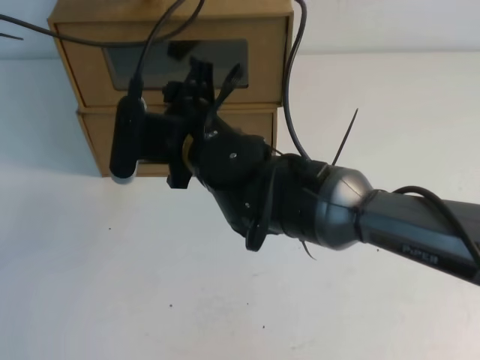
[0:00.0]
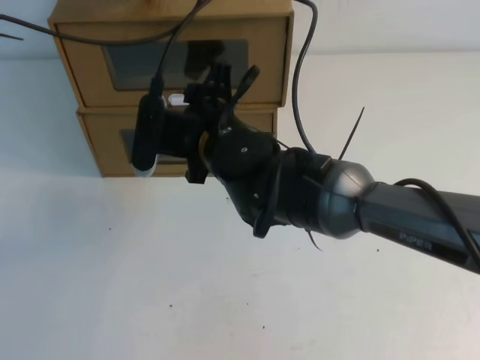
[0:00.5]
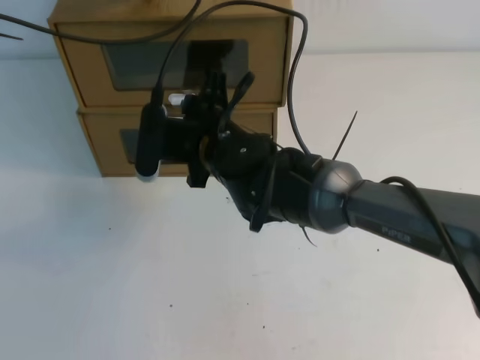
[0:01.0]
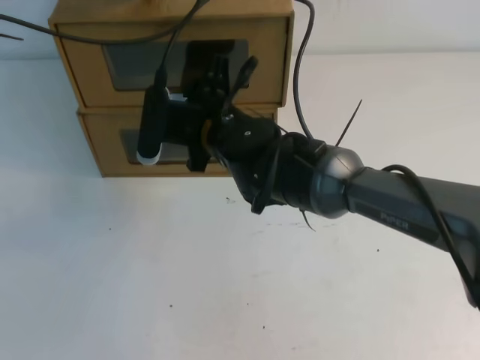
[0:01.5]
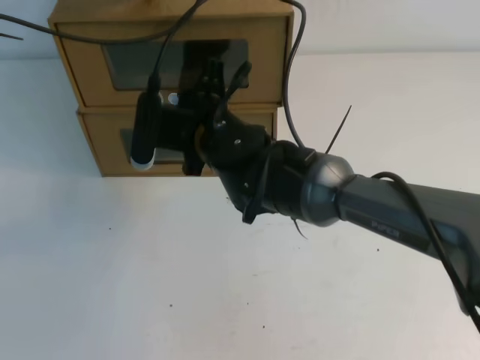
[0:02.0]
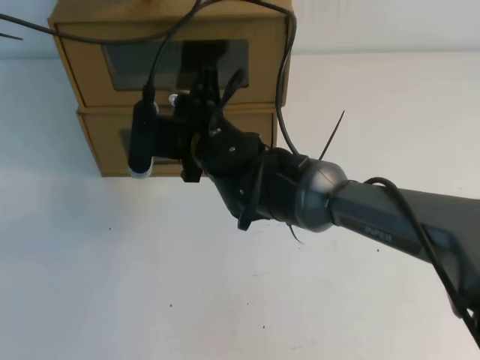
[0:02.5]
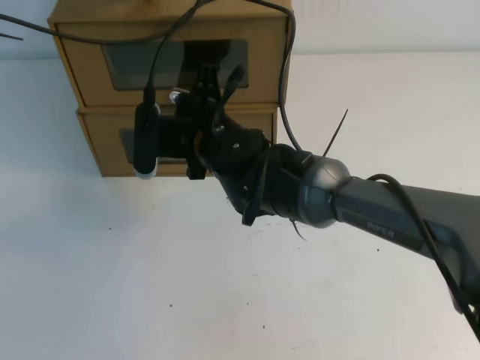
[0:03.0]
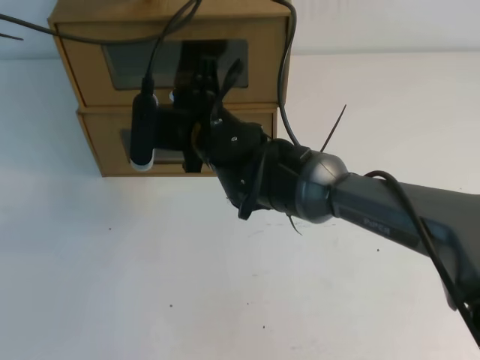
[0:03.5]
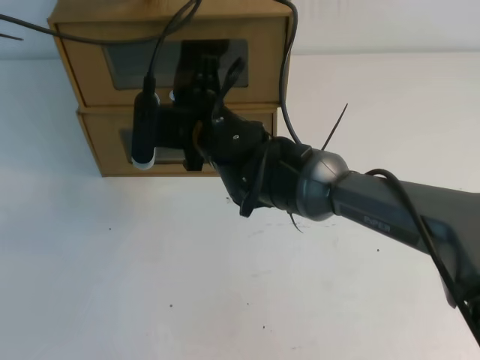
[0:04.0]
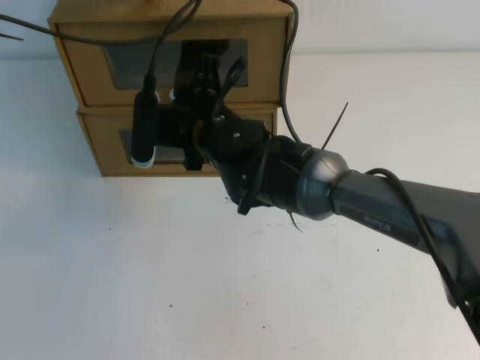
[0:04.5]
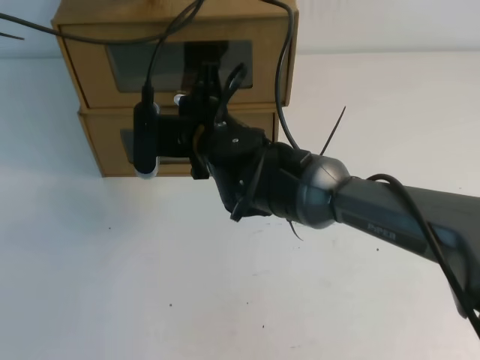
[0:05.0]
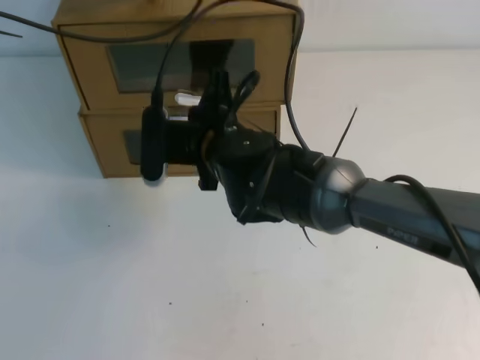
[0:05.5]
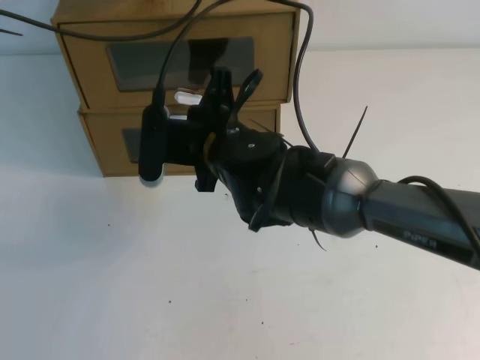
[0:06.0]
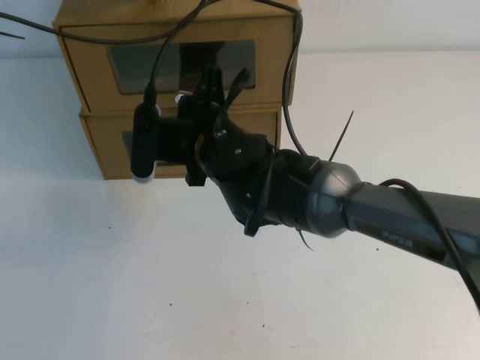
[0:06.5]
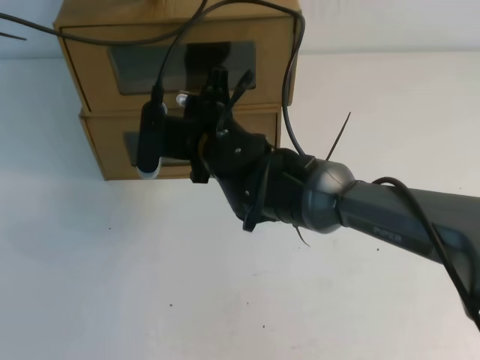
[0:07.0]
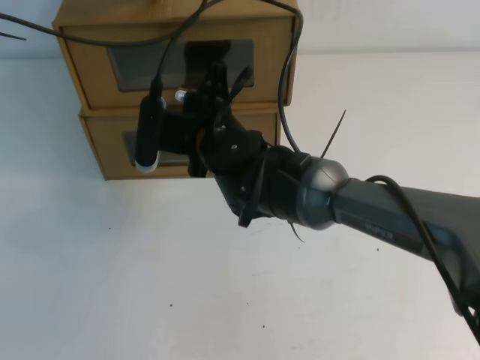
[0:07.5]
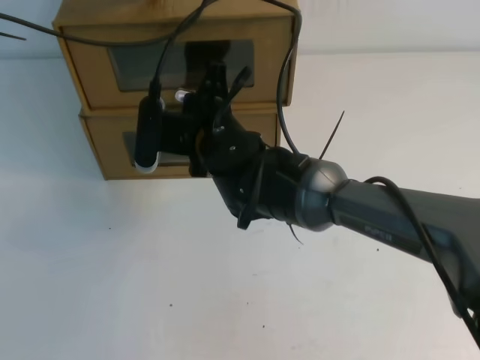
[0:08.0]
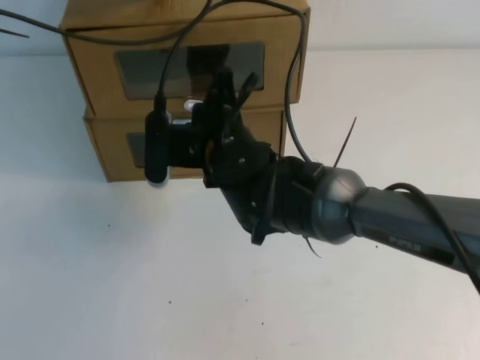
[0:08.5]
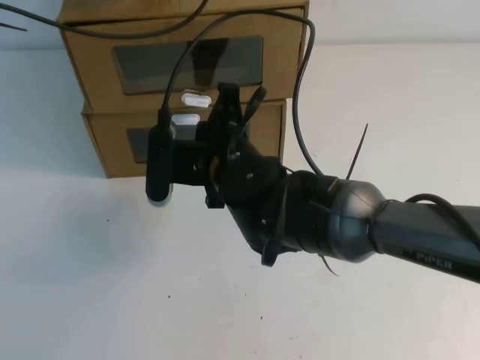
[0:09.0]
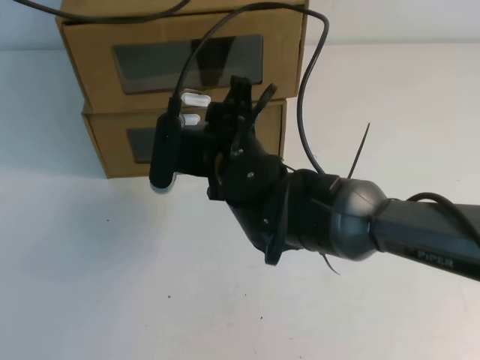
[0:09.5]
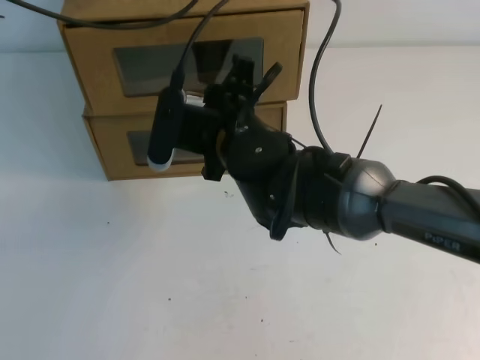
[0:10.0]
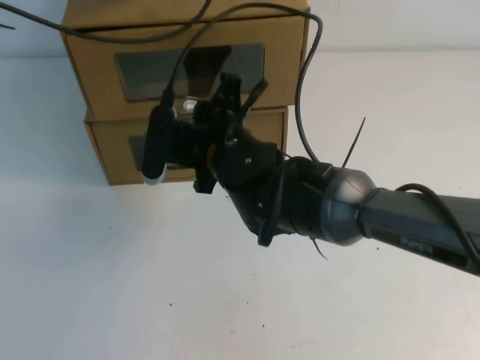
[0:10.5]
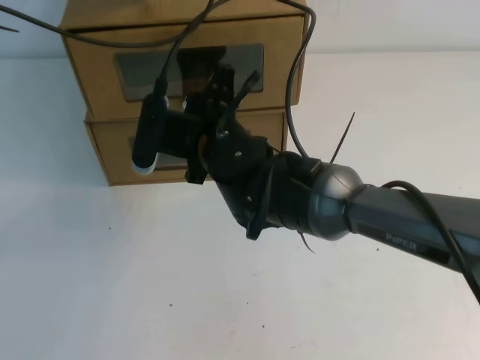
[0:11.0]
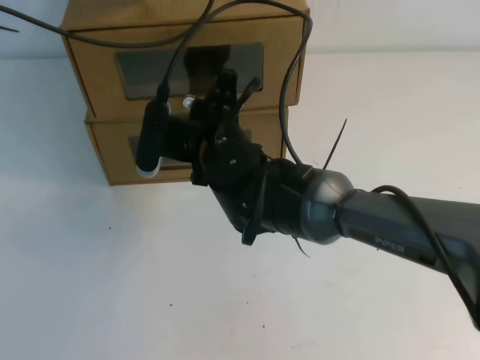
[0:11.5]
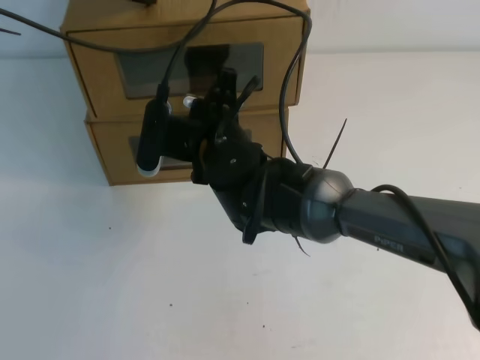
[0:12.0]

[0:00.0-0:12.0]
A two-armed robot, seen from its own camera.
Task of the whole recording: open the shoebox on the table.
0:00.0 to 0:02.0: The right gripper changes place by approximately 5 cm, and closes.
0:02.0 to 0:04.0: The two grippers keep their place.
0:04.0 to 0:06.0: The grippers stay close to where they were, moving slightly.
0:06.0 to 0:08.0: The right gripper opens, then closes again.
0:08.0 to 0:10.0: The left gripper ends up roughly 5 cm from where it was; the right gripper opens.
0:10.0 to 0:12.0: The right gripper closes.

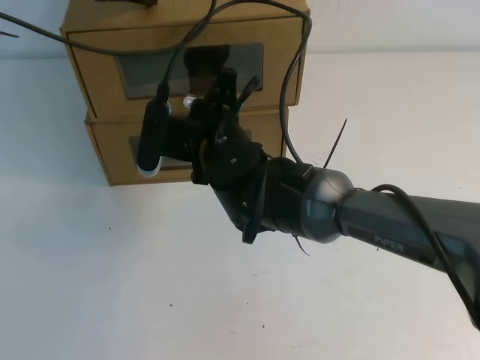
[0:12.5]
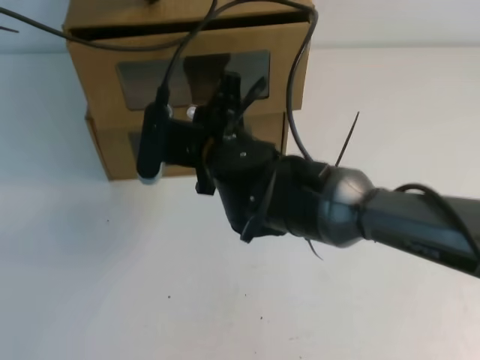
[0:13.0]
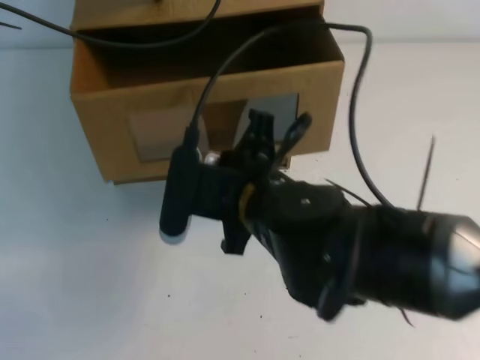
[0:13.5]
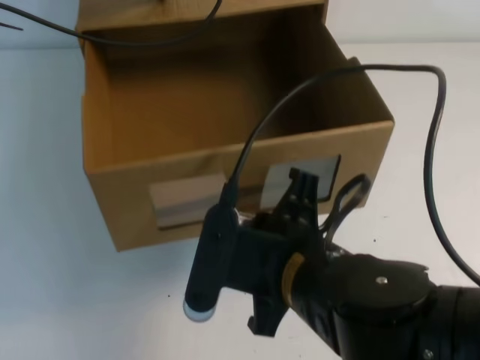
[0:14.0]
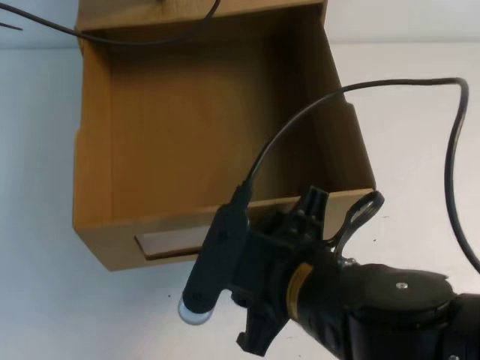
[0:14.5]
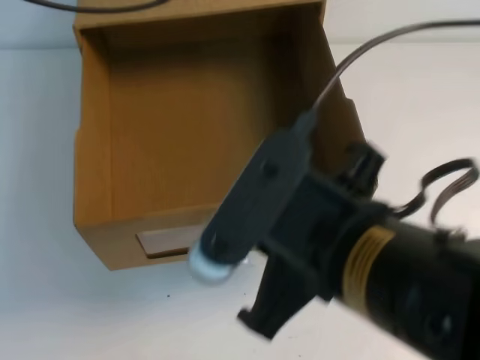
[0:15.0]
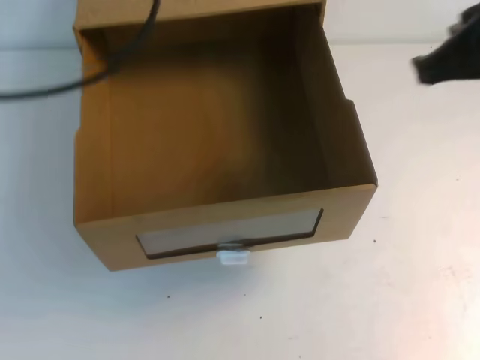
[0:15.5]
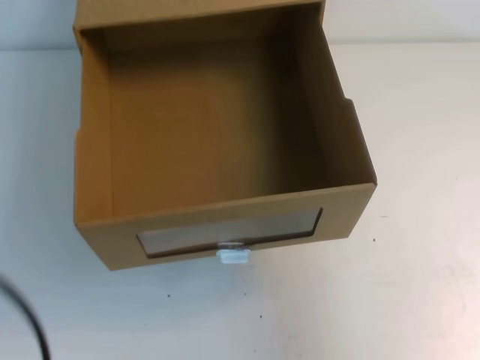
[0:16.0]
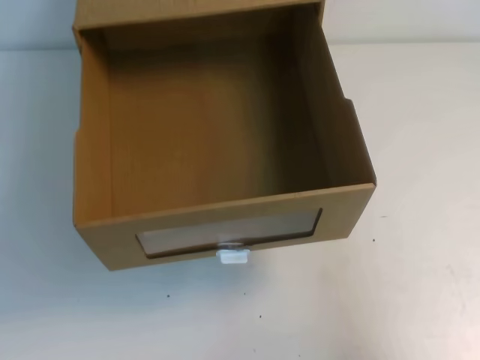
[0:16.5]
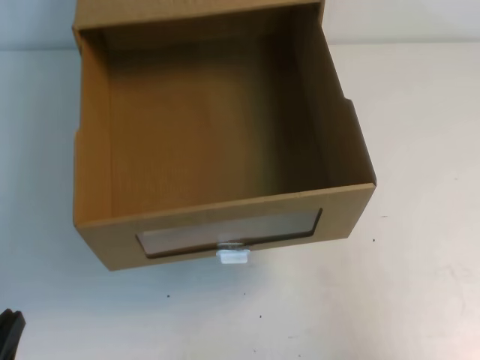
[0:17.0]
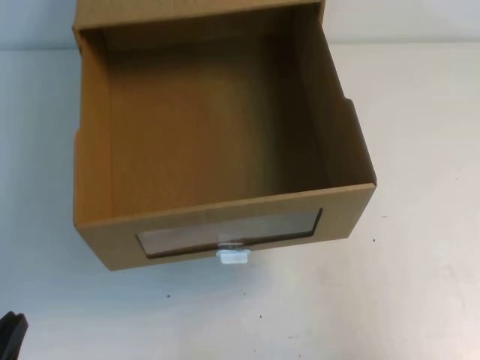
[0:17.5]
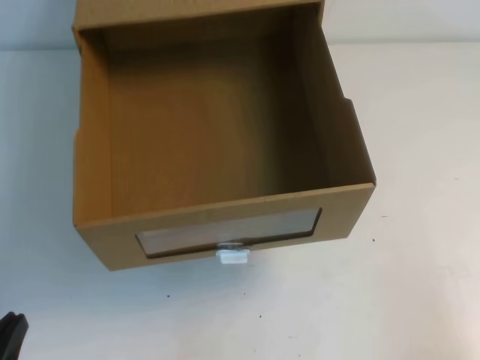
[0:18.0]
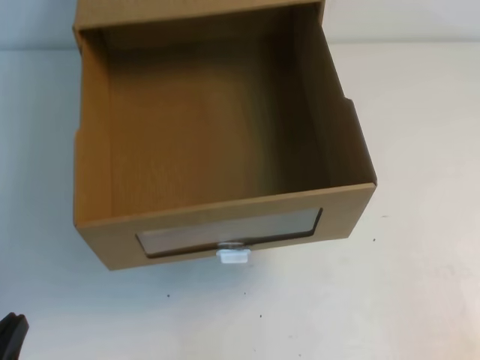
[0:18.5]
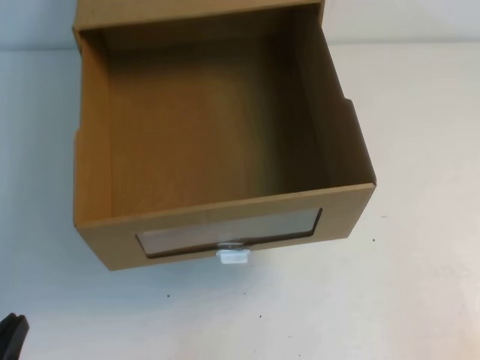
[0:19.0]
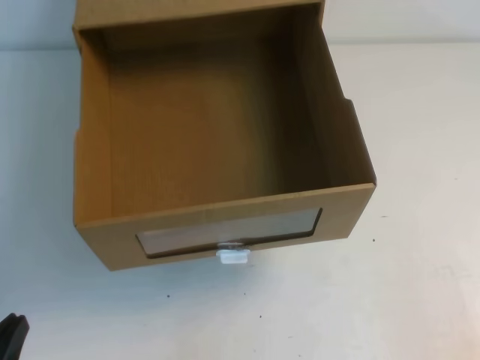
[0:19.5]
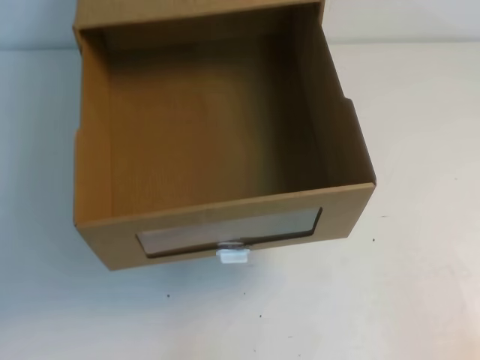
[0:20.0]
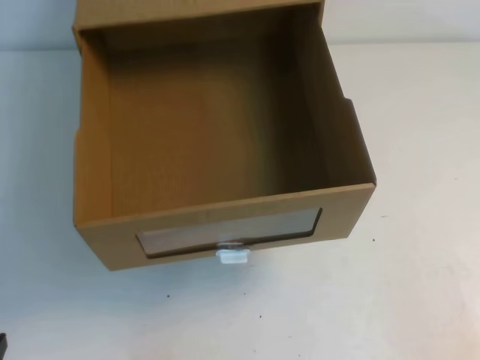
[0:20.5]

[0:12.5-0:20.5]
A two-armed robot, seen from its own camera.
Task of the whole recording: open the shoebox on the table.
Step, 0:12.5 to 0:20.5: Open the shoe box.
0:12.5 to 0:14.5: The right gripper shifts approximately 20 cm backward and to the right, and opens its fingers.
0:14.5 to 0:16.5: The left gripper goes approximately 40 cm backward and downward, while the right gripper is displaced to the right by about 25 cm, and closes its fingers.
0:16.5 to 0:18.5: The right gripper is displaced downward and backward by about 15 cm.

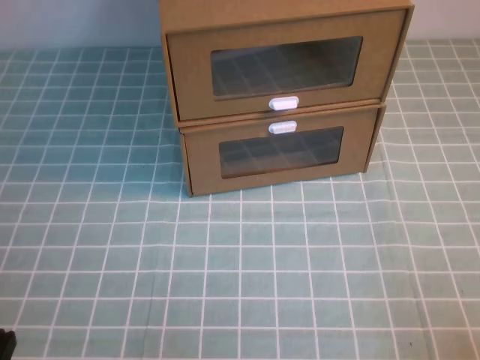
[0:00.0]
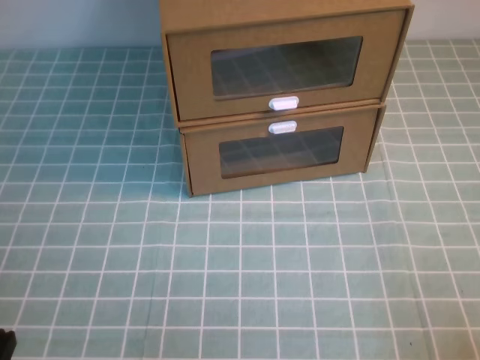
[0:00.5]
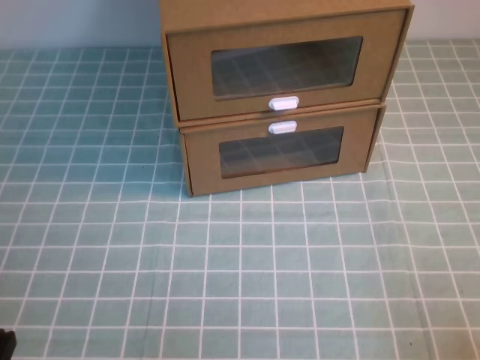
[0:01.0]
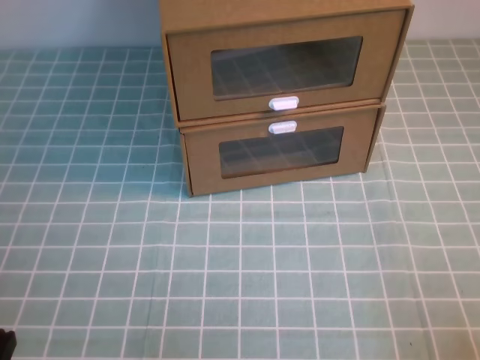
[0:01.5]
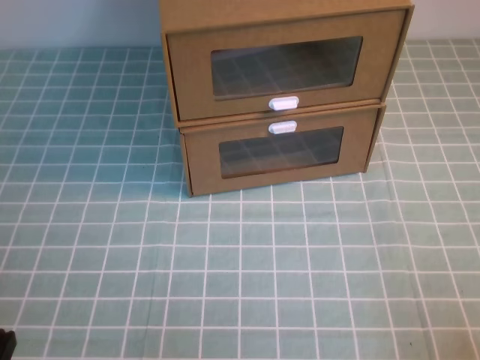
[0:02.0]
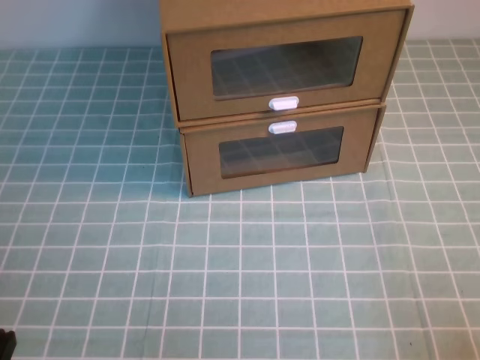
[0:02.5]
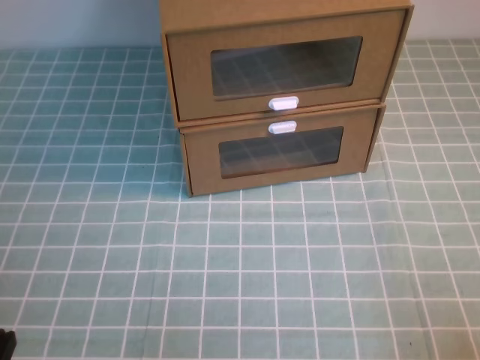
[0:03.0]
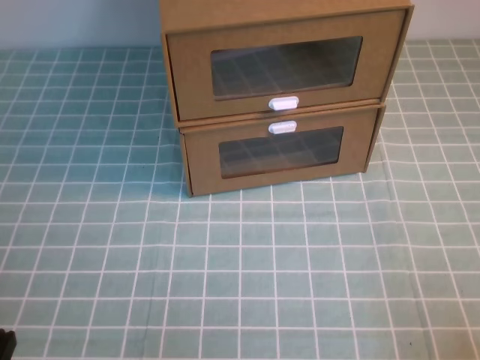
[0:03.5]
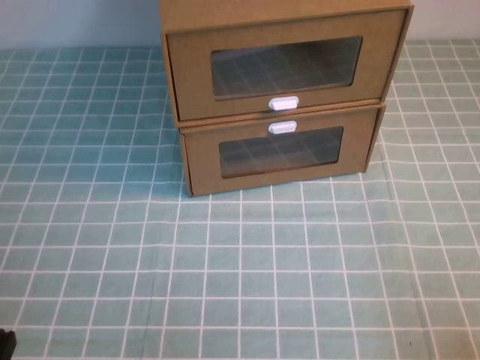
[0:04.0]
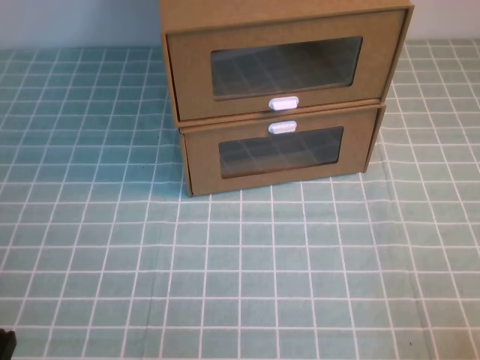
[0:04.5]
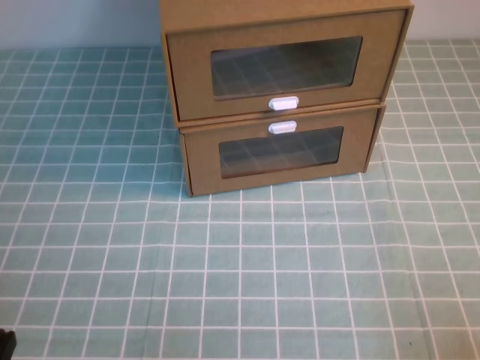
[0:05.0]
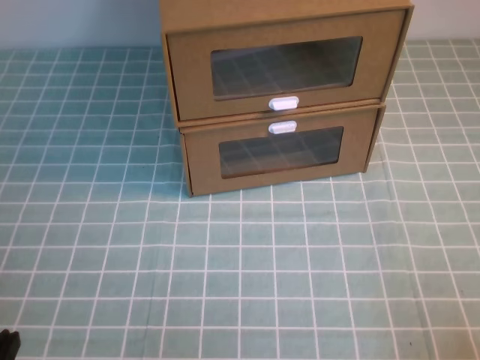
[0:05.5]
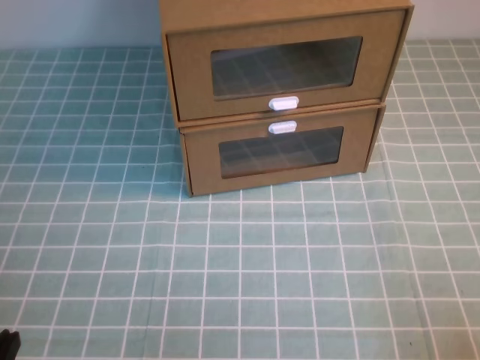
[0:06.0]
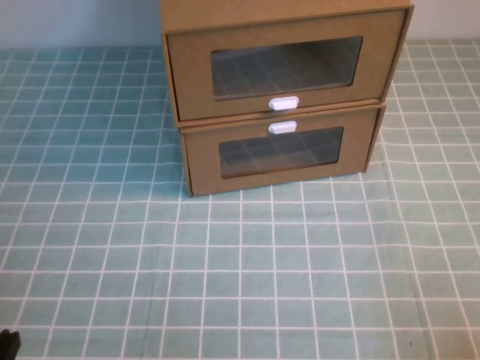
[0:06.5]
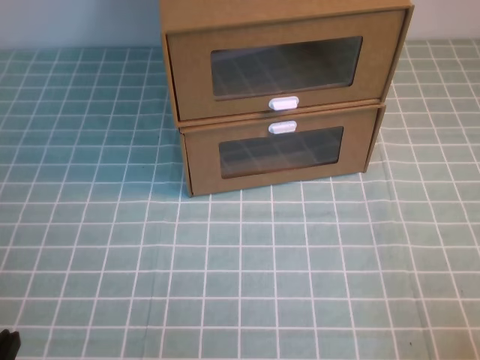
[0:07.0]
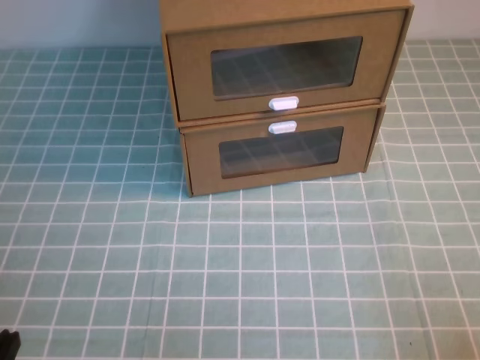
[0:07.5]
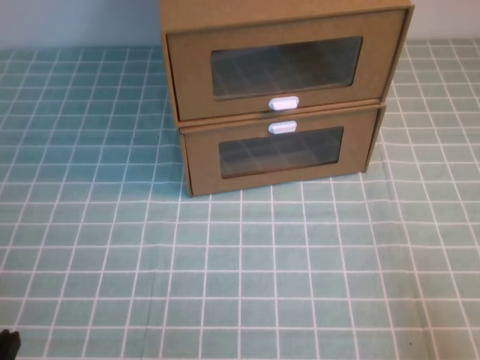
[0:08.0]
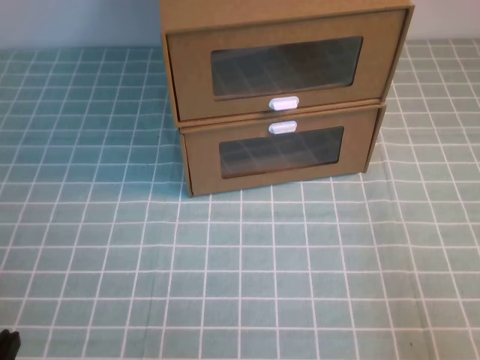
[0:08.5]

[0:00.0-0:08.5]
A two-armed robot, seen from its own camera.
Task of the whole recording: open the shoebox on the cyan tablecloth.
0:00.0 to 0:06.5: Both grippers stay put.
